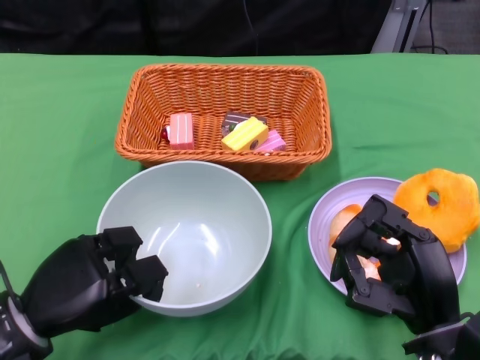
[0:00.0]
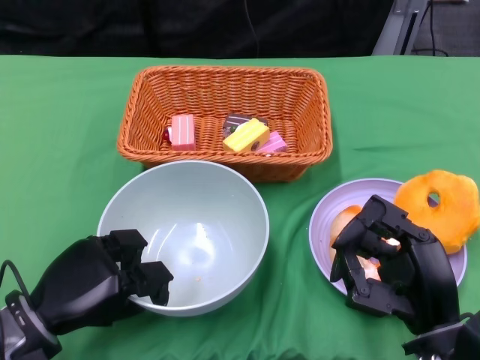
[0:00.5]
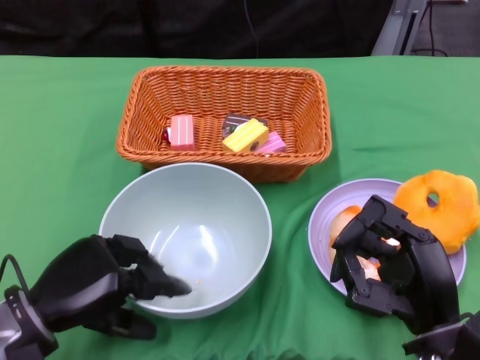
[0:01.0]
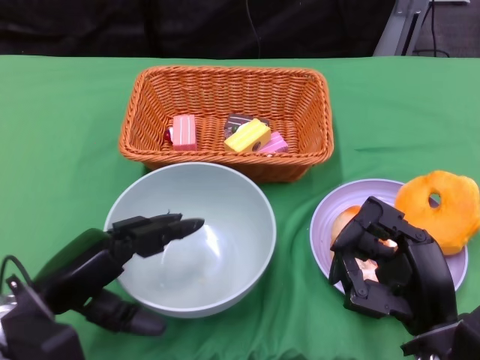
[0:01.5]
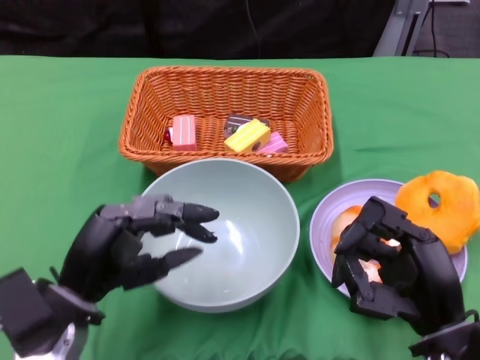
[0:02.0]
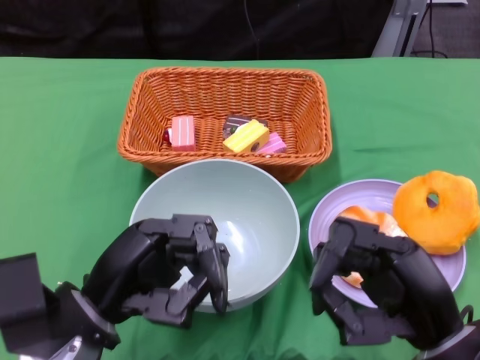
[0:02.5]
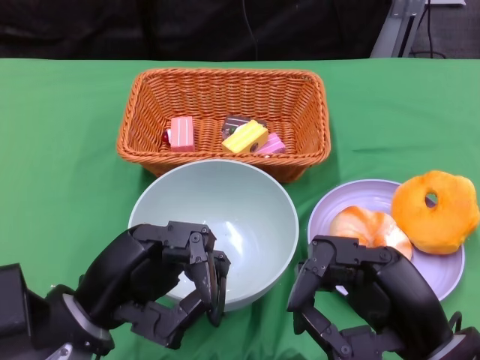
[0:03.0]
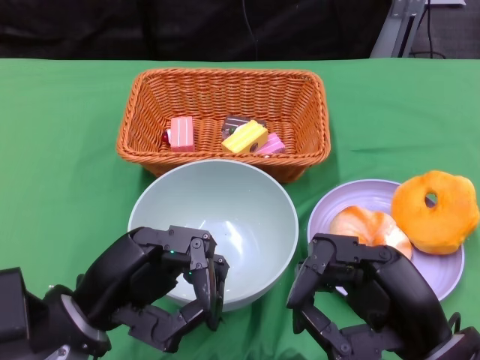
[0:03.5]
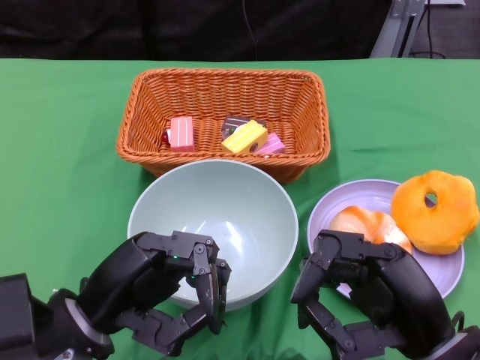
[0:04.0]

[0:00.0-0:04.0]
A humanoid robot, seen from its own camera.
0:00.0 to 0:02.0: The left hand shifts by some 5 cm.
